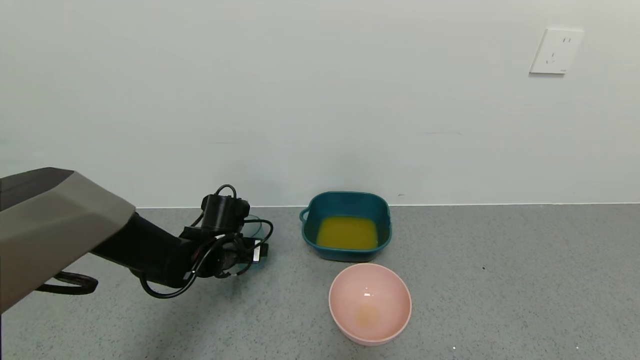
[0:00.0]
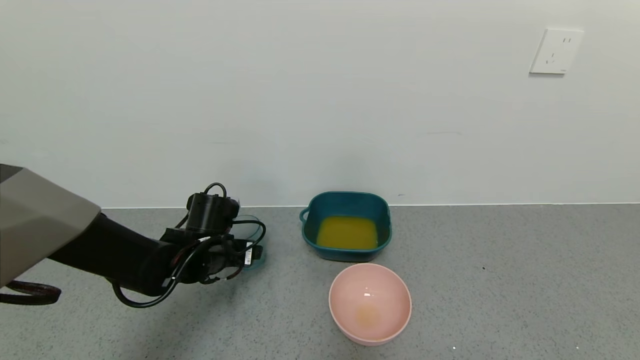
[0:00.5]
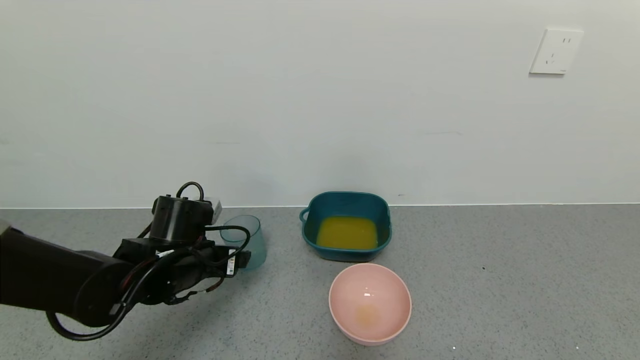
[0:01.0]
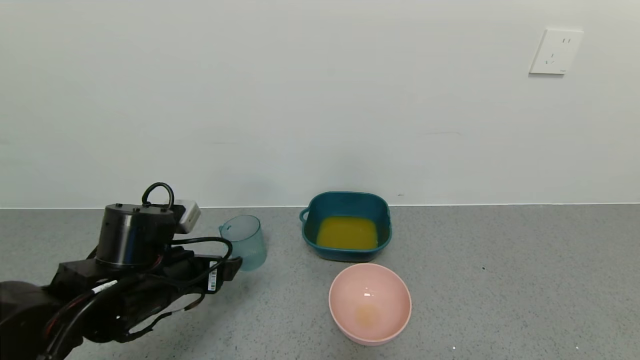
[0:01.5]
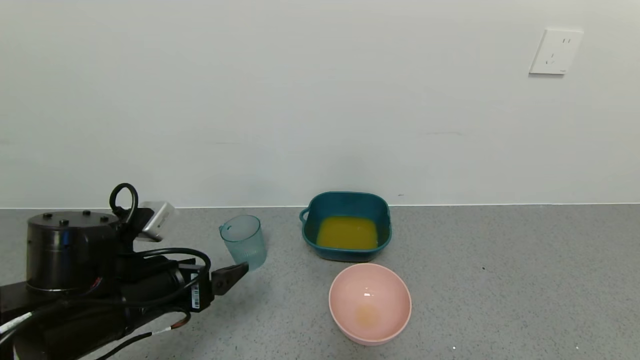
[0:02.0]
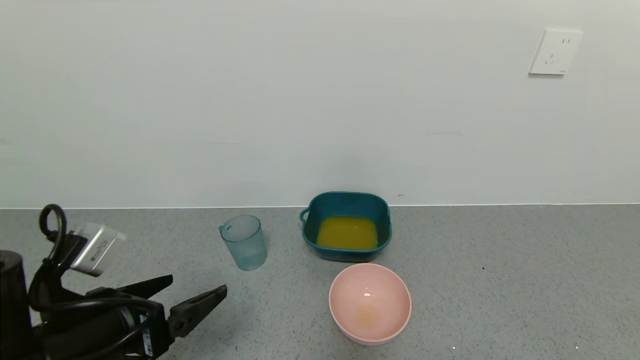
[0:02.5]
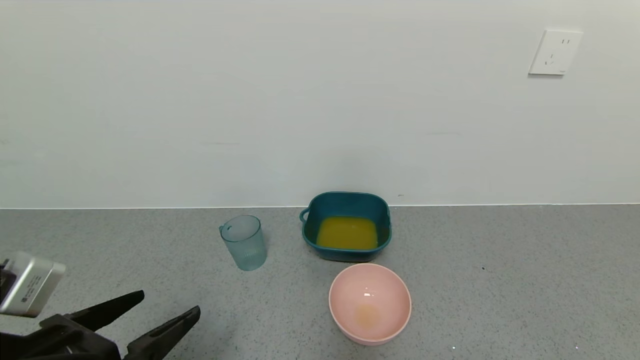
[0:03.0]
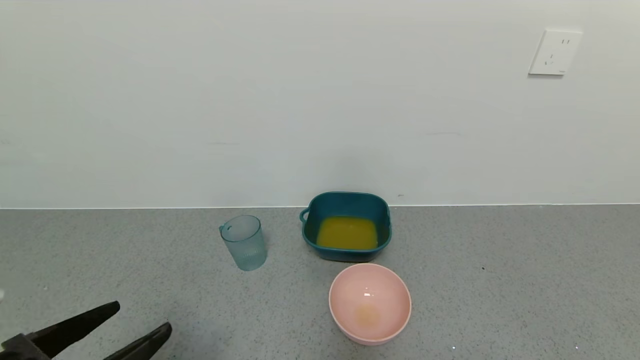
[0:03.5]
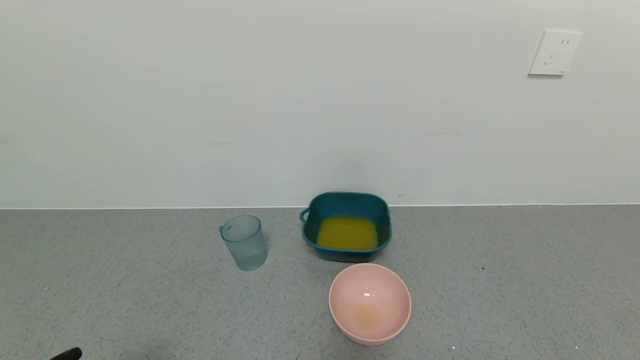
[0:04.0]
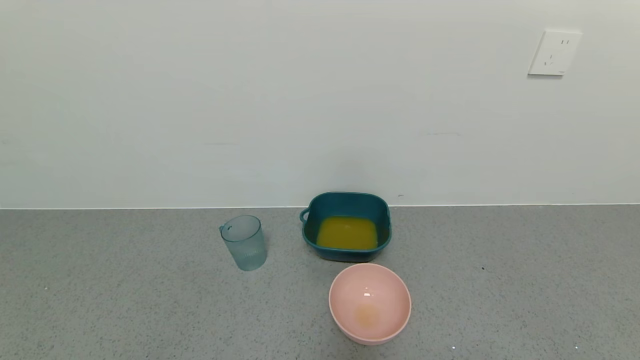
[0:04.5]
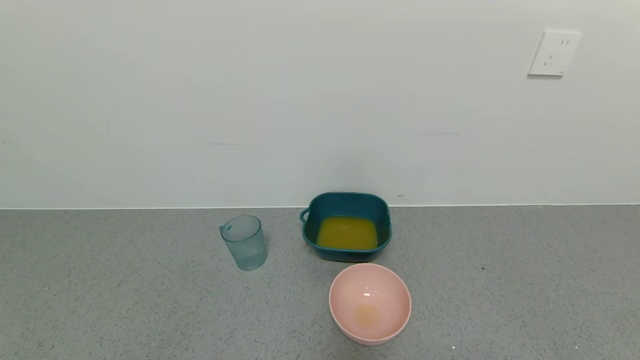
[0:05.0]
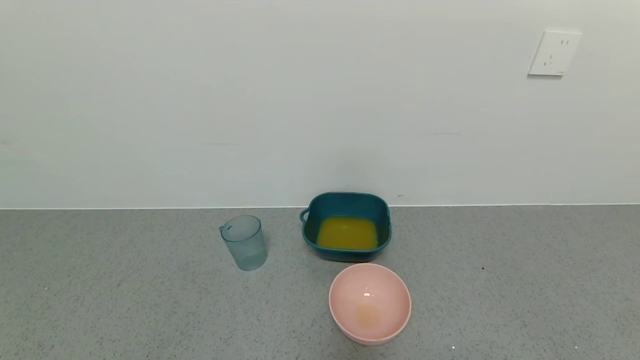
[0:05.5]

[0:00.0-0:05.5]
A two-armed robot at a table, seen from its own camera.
Task of the whole recording: use a gripper to pick up the cup and pour the liquid into a bowl or tray.
0:00.0 to 0:02.0: The left gripper shifts about 20 cm backward and upward.
0:02.0 to 0:03.5: The left gripper heads backward and to the left, covering some 15 cm.
0:03.5 to 0:05.5: The left gripper travels backward and downward by about 15 cm.

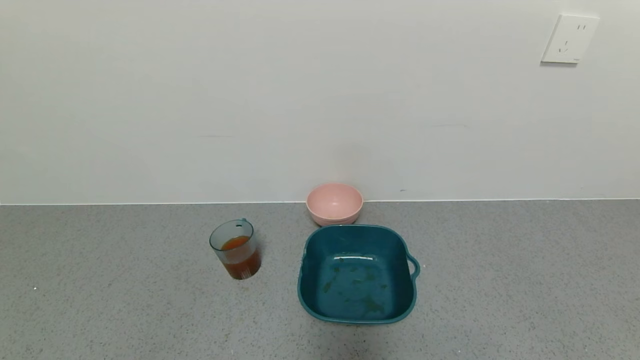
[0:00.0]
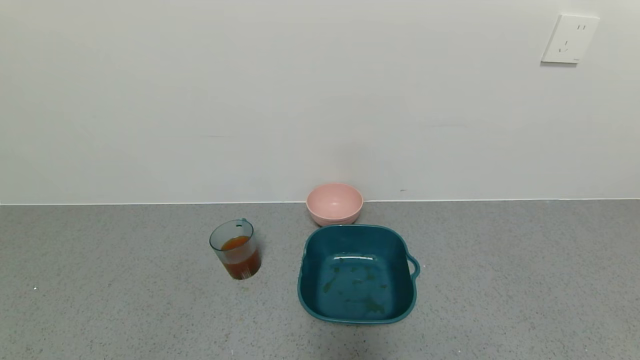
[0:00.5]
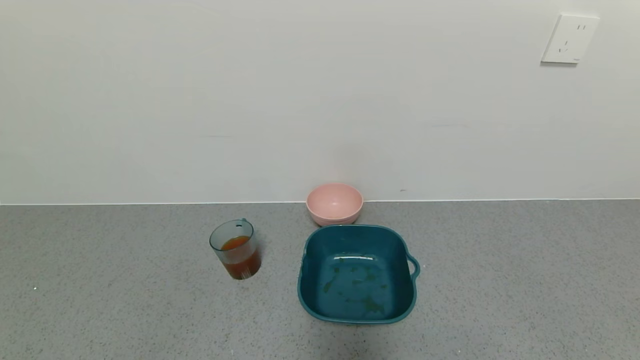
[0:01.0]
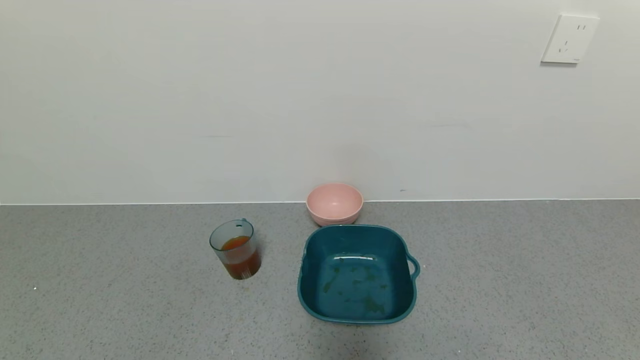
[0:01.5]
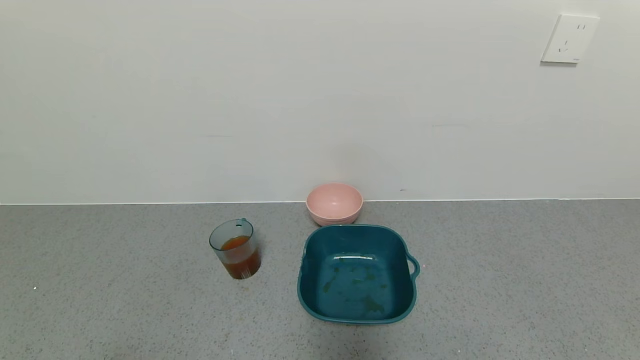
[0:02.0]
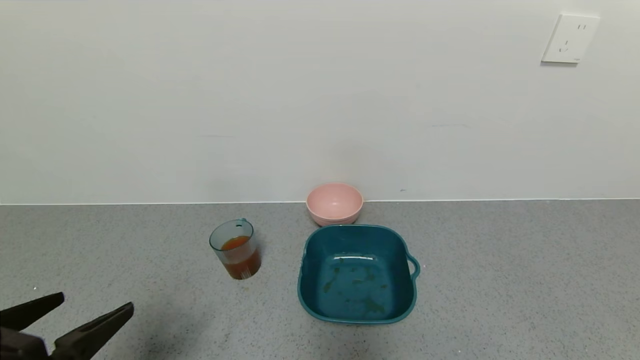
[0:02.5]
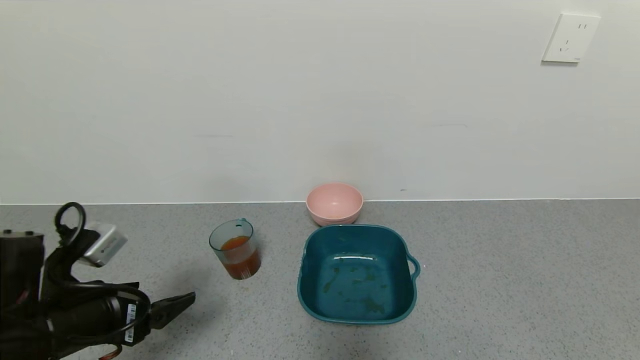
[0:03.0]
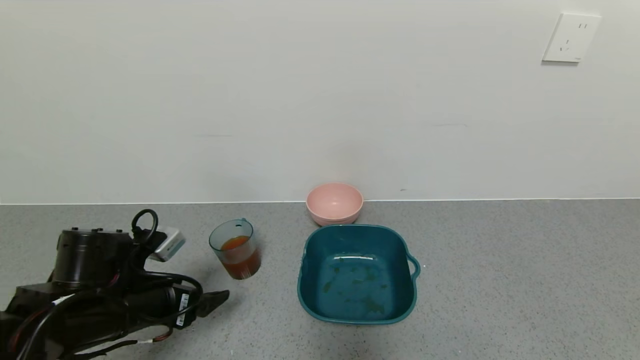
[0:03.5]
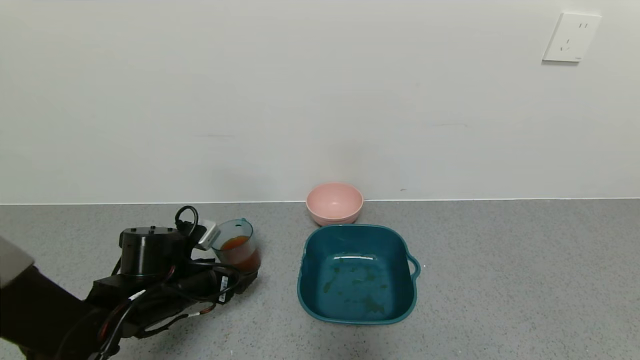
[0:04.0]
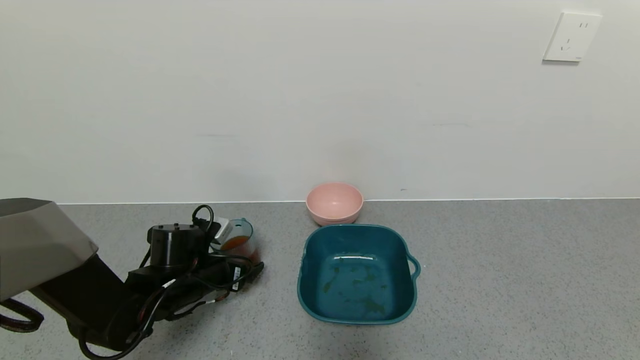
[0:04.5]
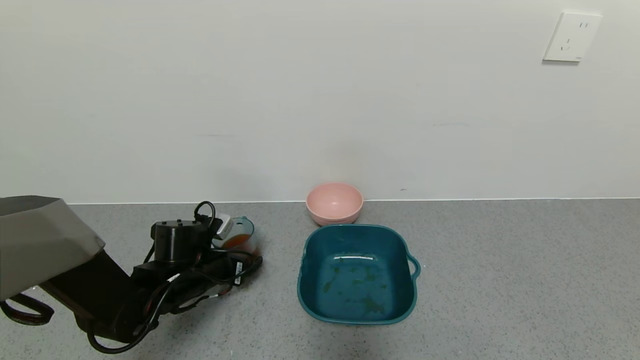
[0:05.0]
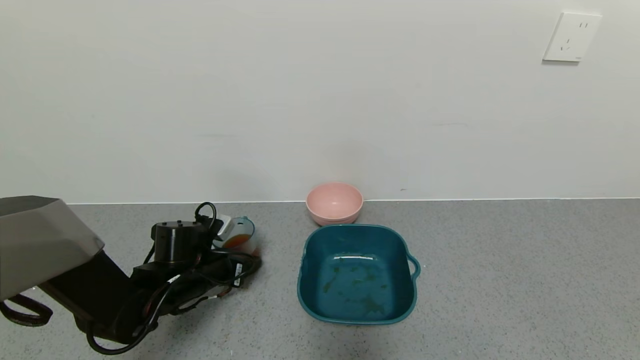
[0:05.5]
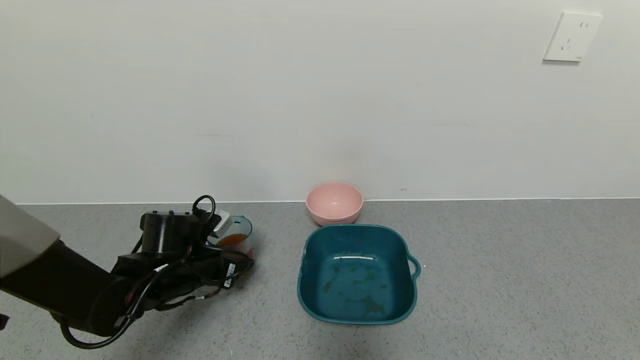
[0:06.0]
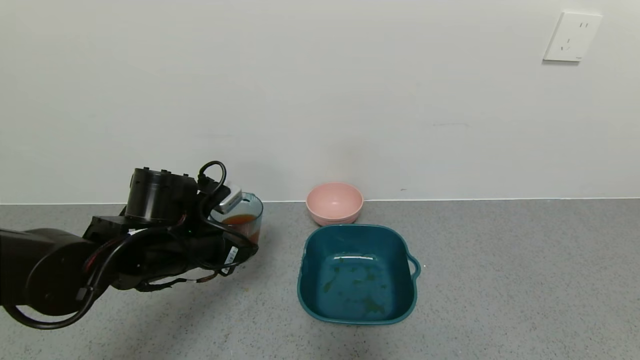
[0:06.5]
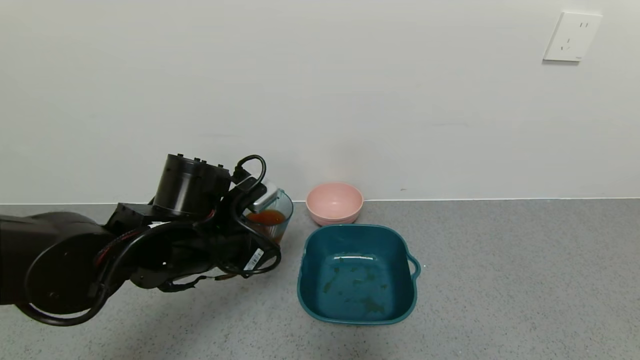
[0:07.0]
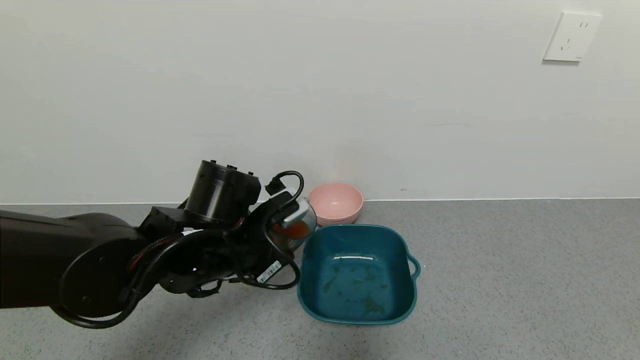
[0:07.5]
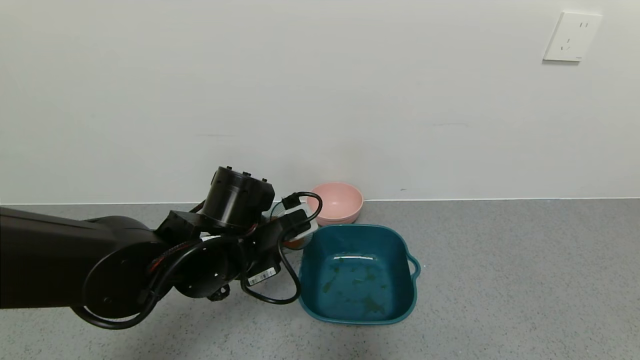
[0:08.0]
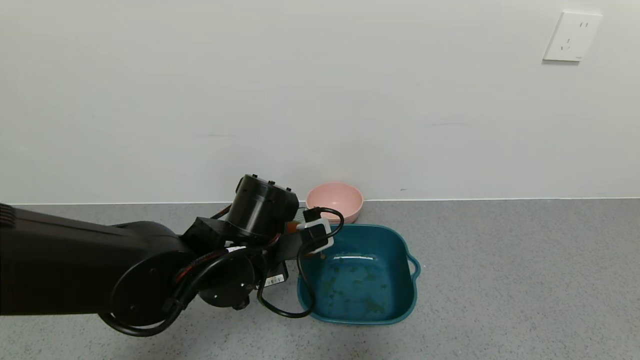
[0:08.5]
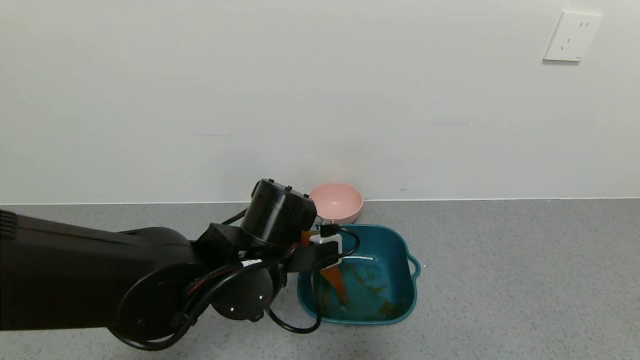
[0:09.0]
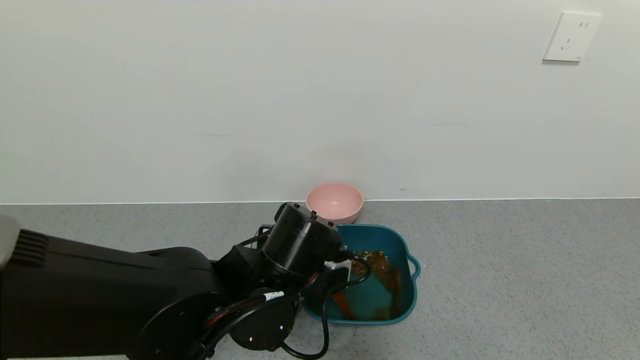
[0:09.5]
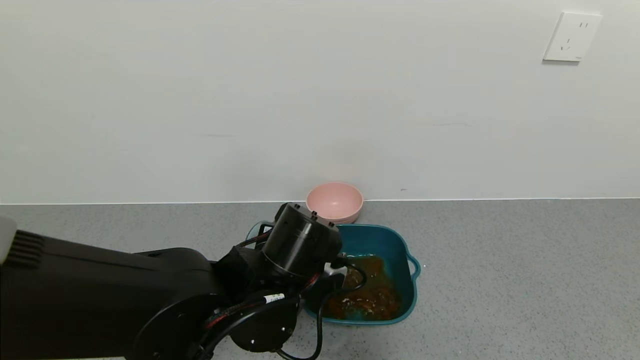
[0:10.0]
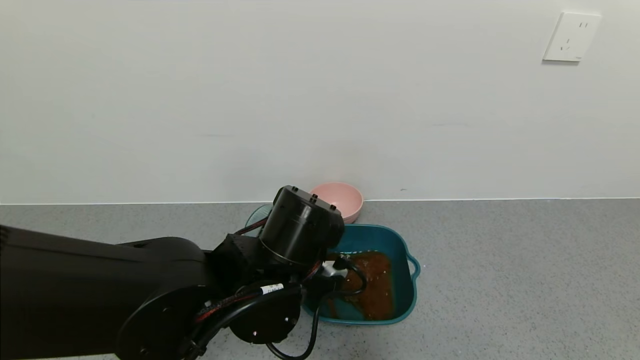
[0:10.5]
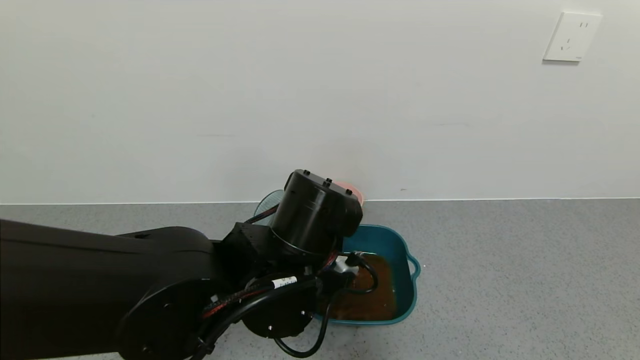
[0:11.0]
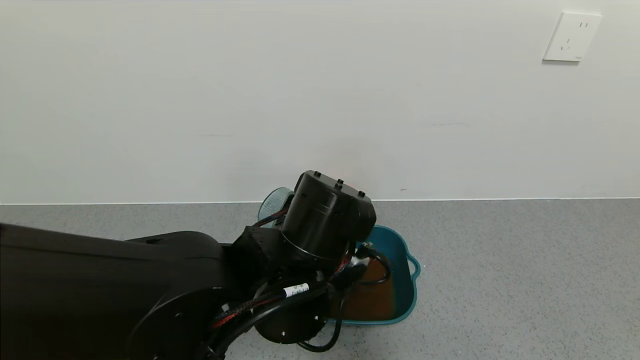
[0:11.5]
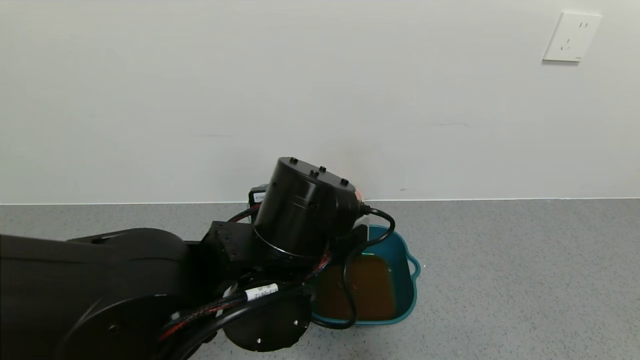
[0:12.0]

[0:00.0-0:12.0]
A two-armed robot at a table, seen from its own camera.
Task of the whole recording: use a gripper to pick up the cup and pour the liquid into a bowl or tray.
Step, 0:00.0 to 0:05.5: Grasp the glass of black tea with the left gripper.
0:02.0 to 0:04.0: The left gripper moves forward, about 30 cm.
0:04.0 to 0:06.0: The left gripper closes its fingers.
0:06.0 to 0:08.0: The left gripper travels to the right and upward by about 15 cm.
0:08.0 to 0:10.0: The left gripper heads to the right, covering roughly 5 cm.
0:10.0 to 0:12.0: The left gripper travels upward by about 5 cm.

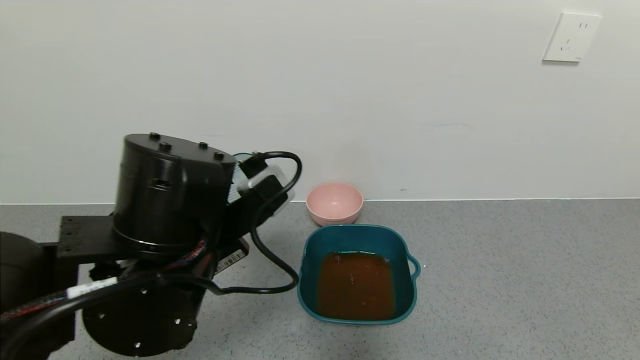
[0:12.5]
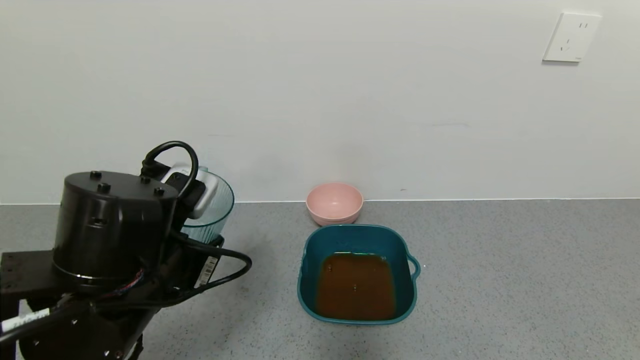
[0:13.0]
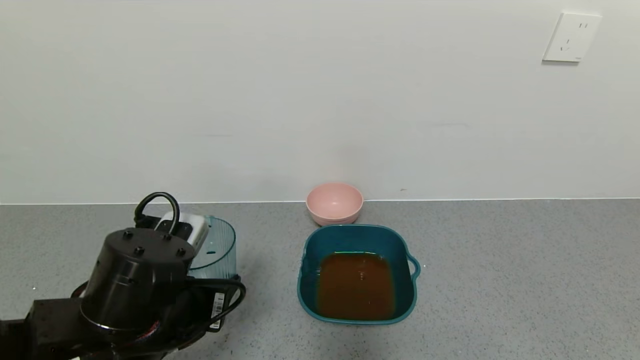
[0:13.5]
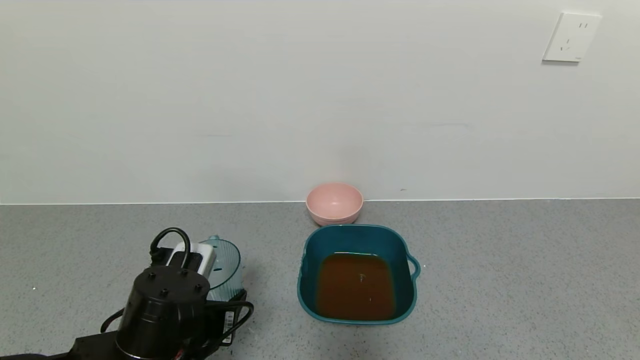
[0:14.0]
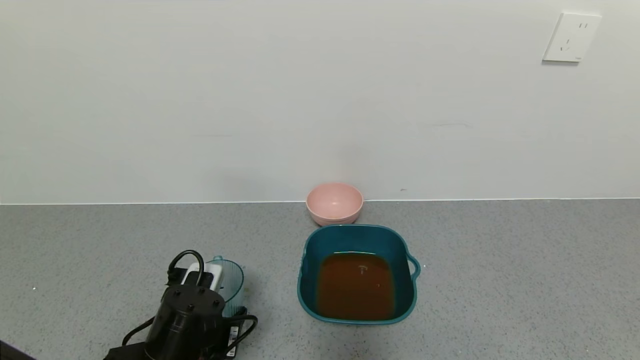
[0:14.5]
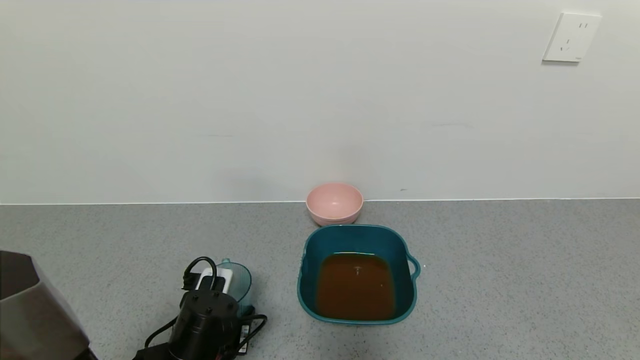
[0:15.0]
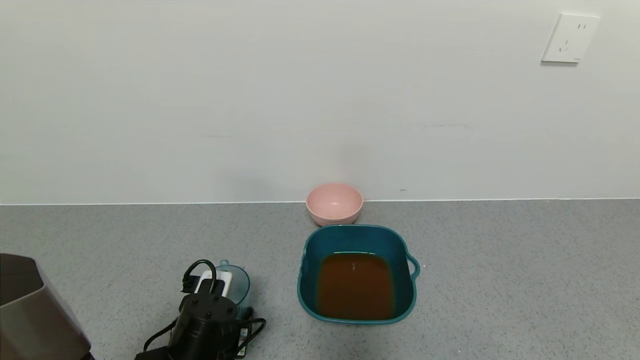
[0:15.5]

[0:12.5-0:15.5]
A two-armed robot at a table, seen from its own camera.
Task of the whole recording: use a gripper to pick up the cup and pour the liquid into a bowl or tray.
0:12.5 to 0:14.0: The left gripper heads downward, covering roughly 10 cm.
0:14.0 to 0:15.5: The left gripper moves downward, some 5 cm.
